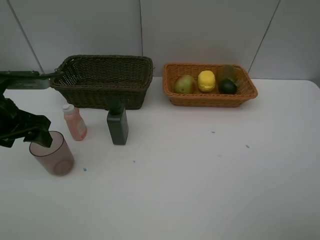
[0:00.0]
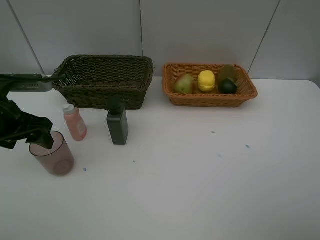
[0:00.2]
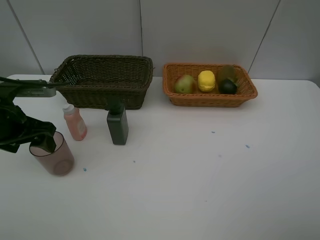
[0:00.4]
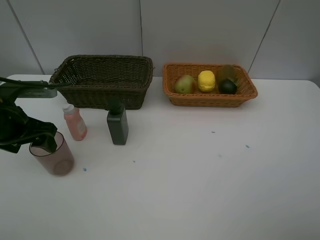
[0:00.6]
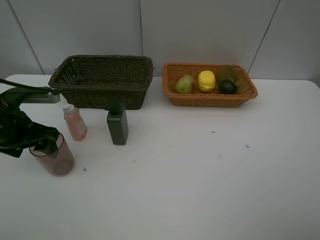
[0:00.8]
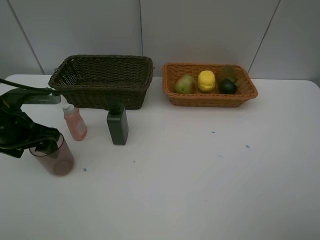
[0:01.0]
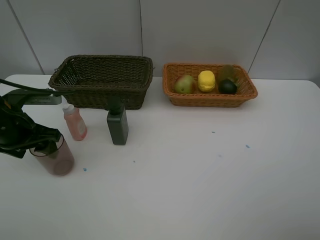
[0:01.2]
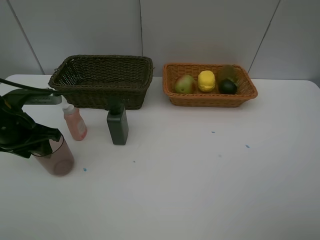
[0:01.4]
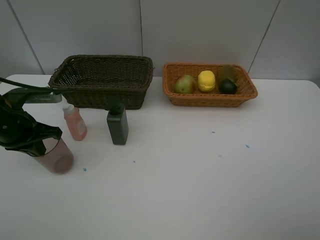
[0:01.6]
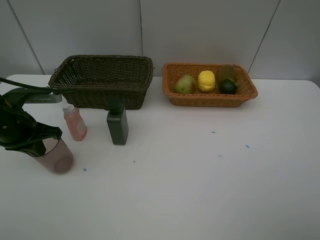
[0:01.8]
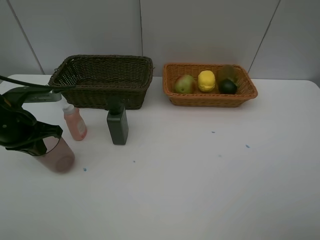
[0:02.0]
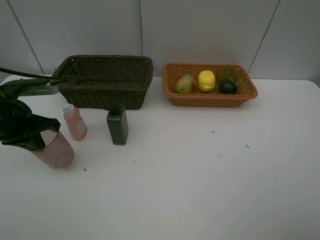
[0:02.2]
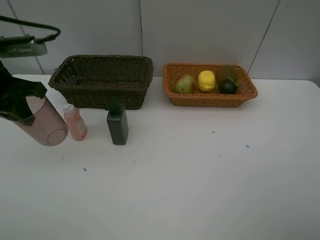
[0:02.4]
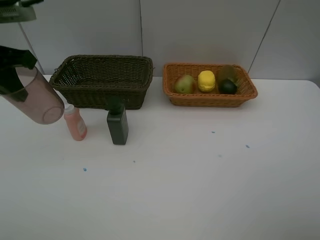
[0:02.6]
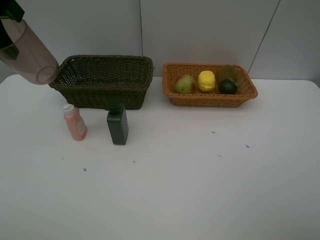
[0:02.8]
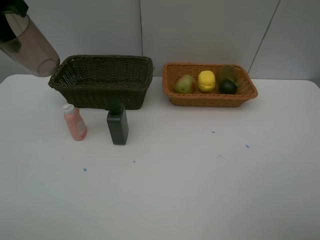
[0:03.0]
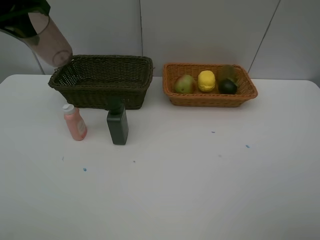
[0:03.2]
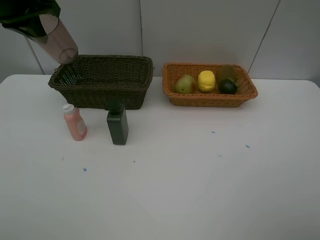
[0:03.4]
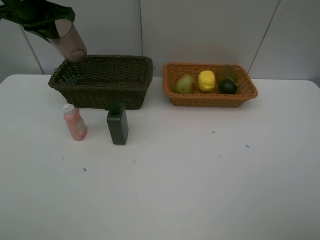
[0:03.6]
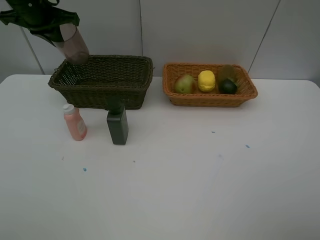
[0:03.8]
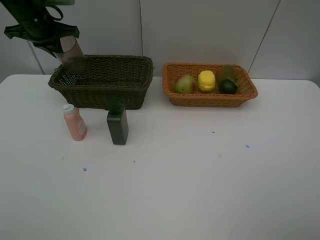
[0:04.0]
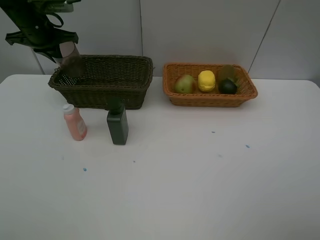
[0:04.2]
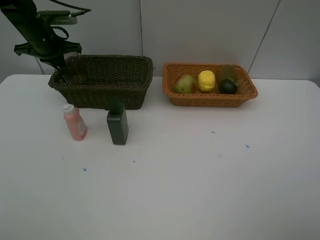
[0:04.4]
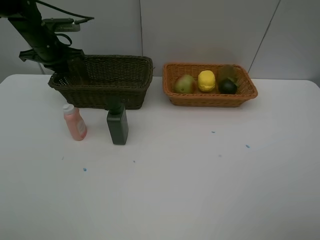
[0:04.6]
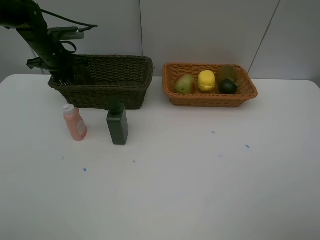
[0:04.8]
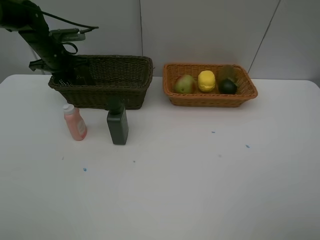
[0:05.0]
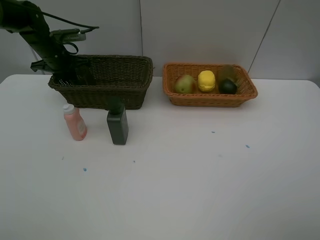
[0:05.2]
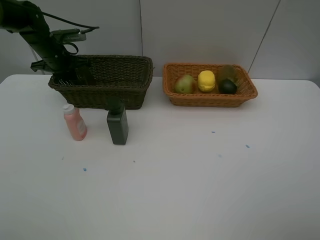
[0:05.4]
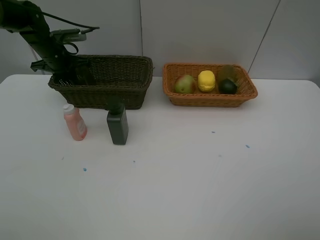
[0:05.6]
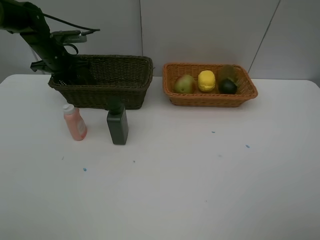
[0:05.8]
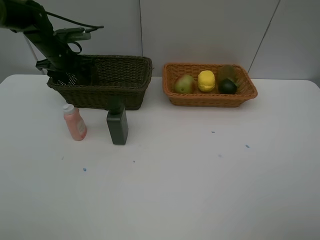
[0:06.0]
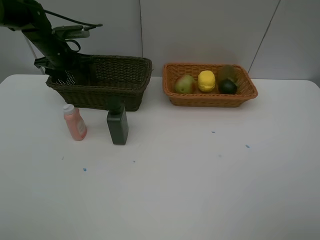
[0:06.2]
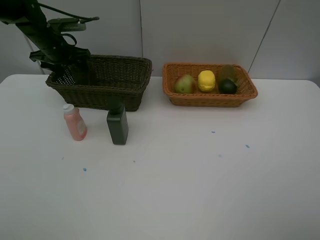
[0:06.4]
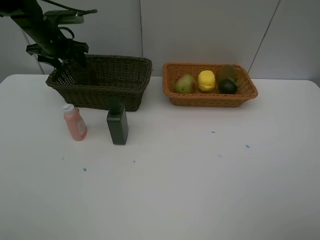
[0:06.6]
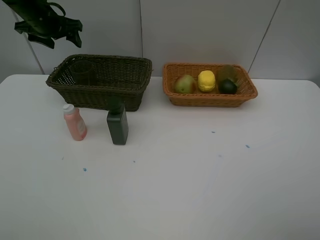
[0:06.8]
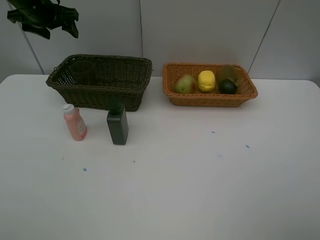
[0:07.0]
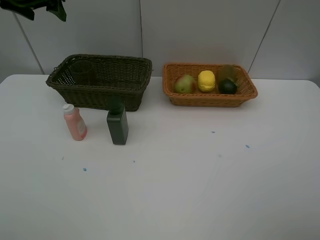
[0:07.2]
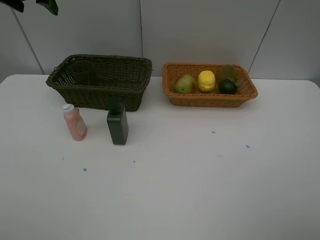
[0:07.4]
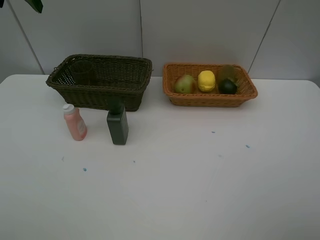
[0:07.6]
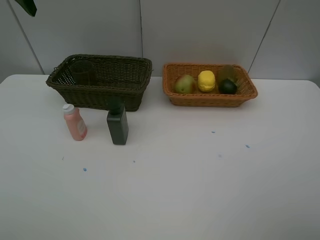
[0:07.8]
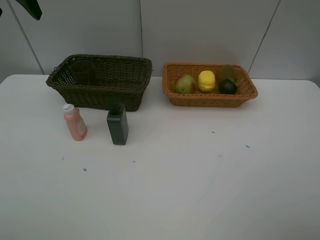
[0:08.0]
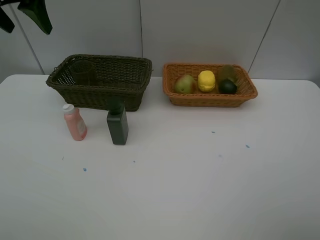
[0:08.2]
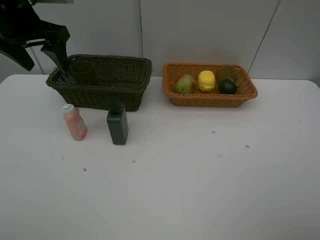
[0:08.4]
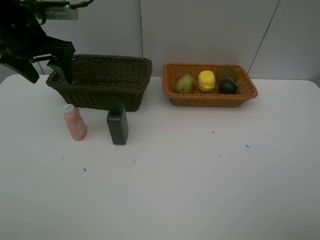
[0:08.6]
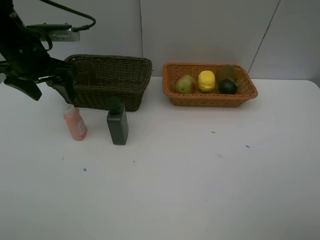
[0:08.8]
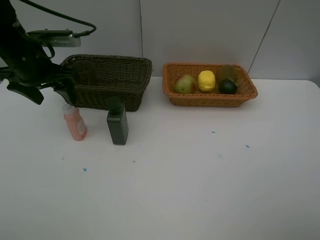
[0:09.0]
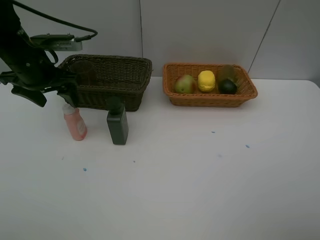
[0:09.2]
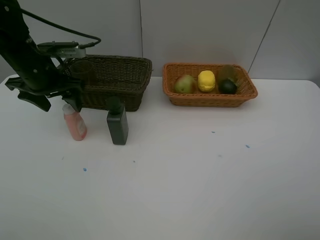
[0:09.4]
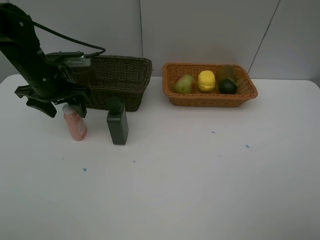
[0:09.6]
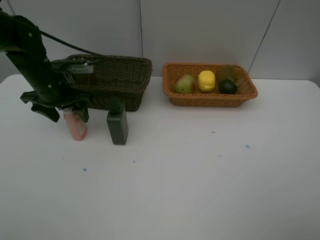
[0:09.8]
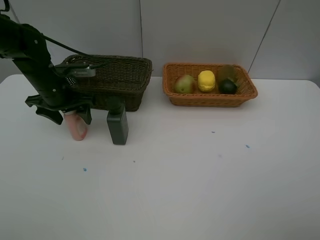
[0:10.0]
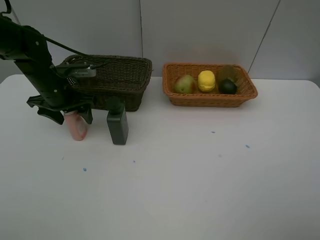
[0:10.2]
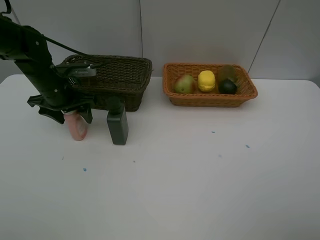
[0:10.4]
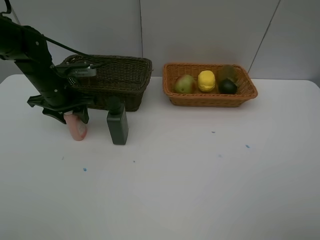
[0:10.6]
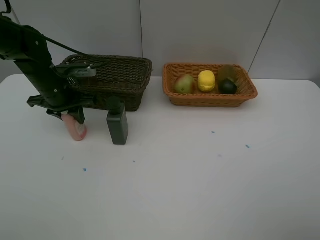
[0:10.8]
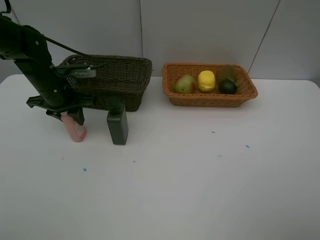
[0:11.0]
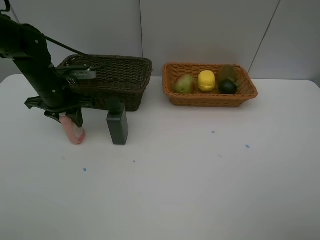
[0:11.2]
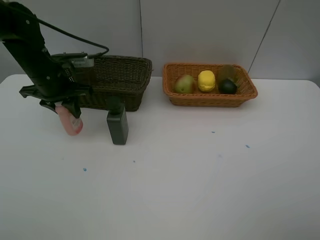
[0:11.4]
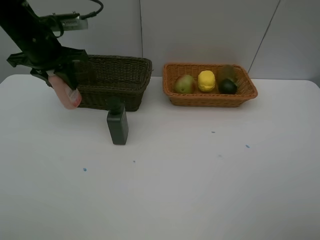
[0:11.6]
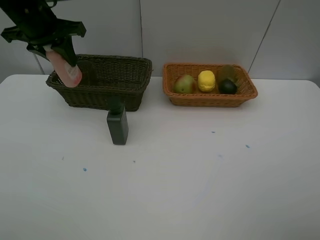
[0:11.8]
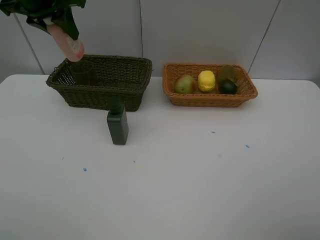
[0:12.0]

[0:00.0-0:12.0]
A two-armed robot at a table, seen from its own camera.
Task of the whole recording: Place multiple objects separately in different baskets.
Step, 0:00.0 to 0:02.4: Pick up the red cup with left gripper.
Step, 0:02.6 to 0:06.8: Place the red cup in the dark basket with left gripper.
Step, 0:07.0 to 0:11.4: Pick up the laundry detergent with left gripper.
0:00.0 to 0:01.6: The left gripper closes.
0:01.6 to 0:03.0: The left gripper shifts some 20 cm upward.
0:03.0 to 0:04.4: The left gripper is displaced forward and downward by about 25 cm.
0:04.4 to 0:06.0: The left gripper opens up.
0:06.0 to 0:07.6: The left gripper shifts approximately 20 cm upward.
0:07.6 to 0:09.0: The left gripper is displaced downward and backward by about 15 cm.
0:09.0 to 0:10.4: The left gripper travels downward by approximately 10 cm.
0:10.4 to 0:12.0: The left gripper travels upward by approximately 20 cm, and closes its fingers.

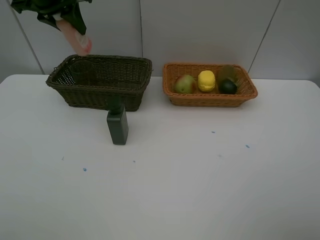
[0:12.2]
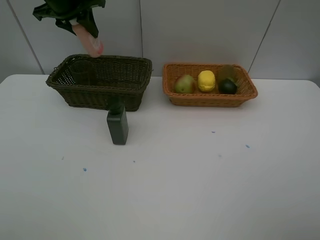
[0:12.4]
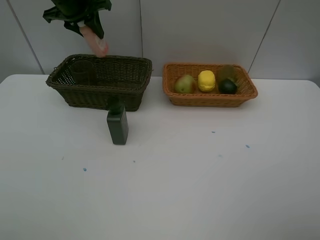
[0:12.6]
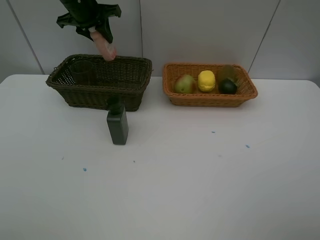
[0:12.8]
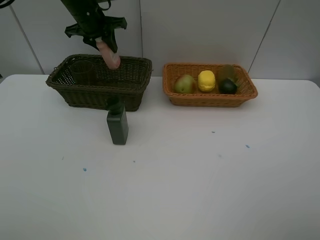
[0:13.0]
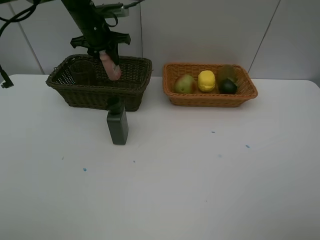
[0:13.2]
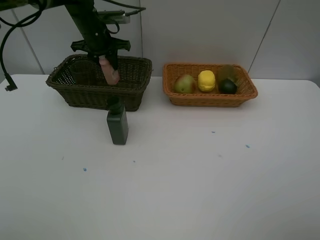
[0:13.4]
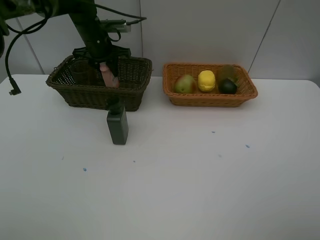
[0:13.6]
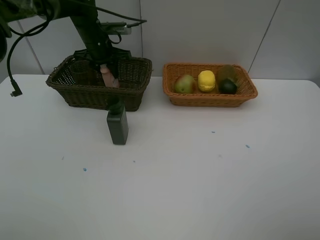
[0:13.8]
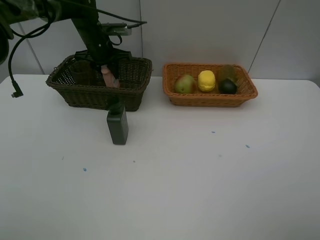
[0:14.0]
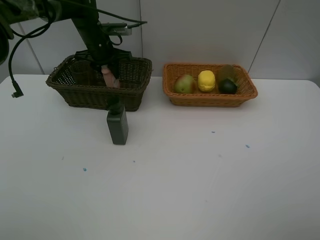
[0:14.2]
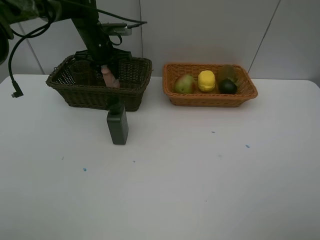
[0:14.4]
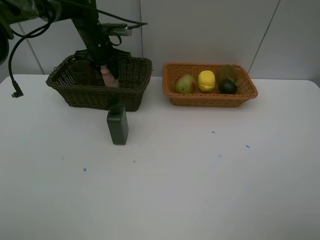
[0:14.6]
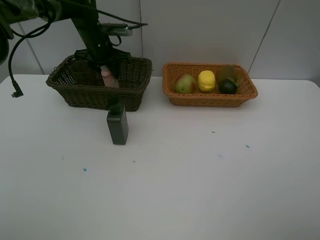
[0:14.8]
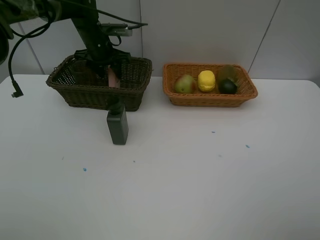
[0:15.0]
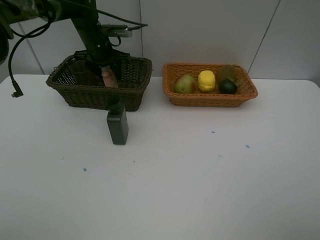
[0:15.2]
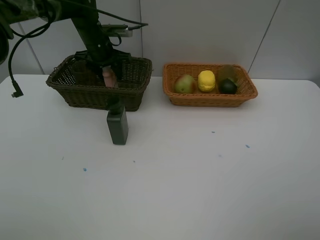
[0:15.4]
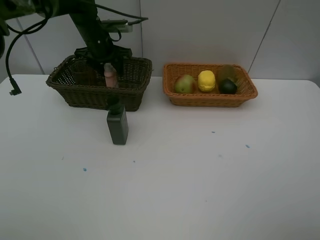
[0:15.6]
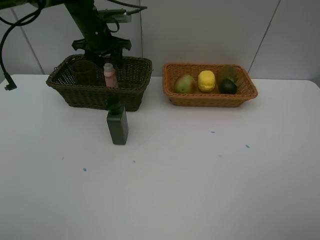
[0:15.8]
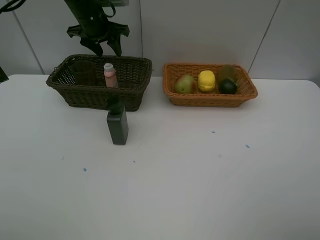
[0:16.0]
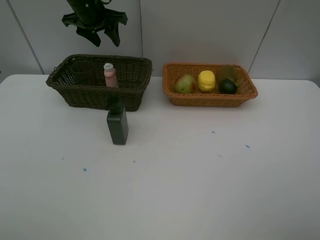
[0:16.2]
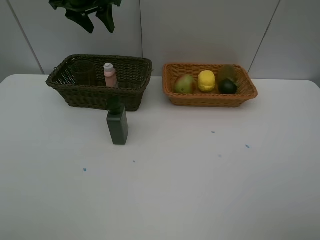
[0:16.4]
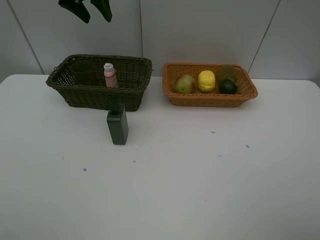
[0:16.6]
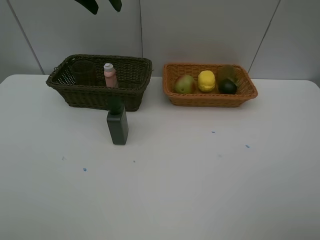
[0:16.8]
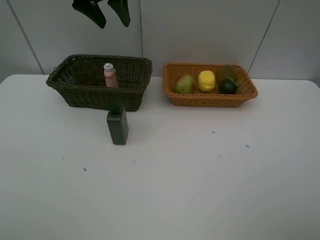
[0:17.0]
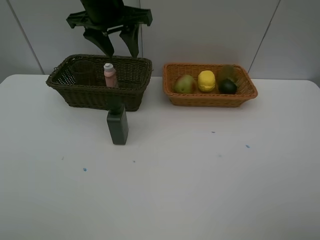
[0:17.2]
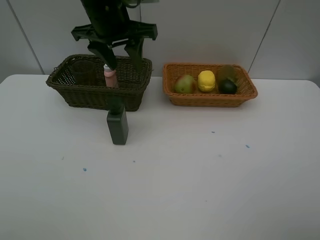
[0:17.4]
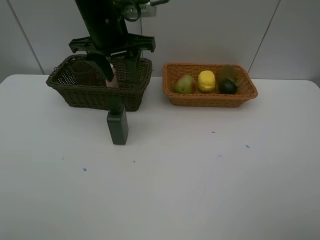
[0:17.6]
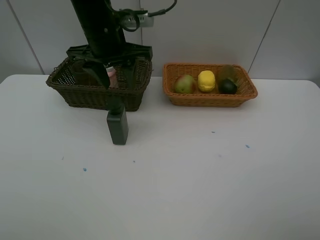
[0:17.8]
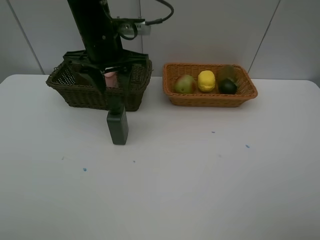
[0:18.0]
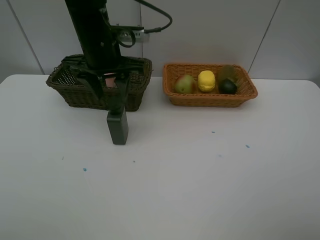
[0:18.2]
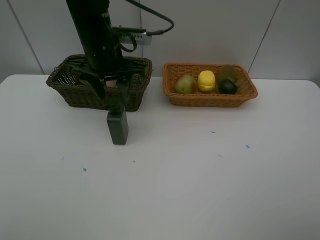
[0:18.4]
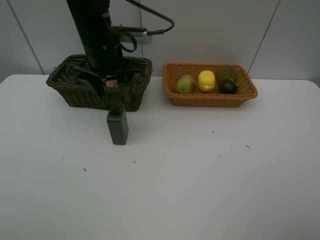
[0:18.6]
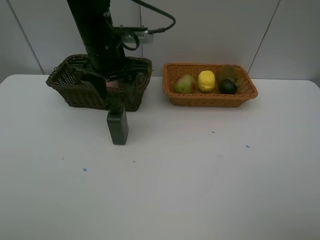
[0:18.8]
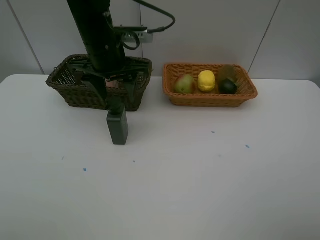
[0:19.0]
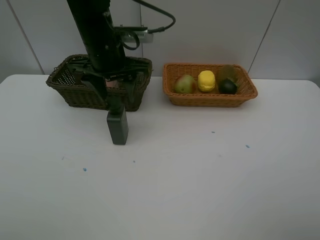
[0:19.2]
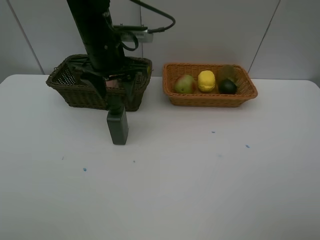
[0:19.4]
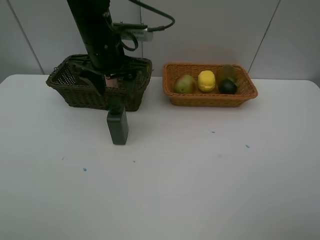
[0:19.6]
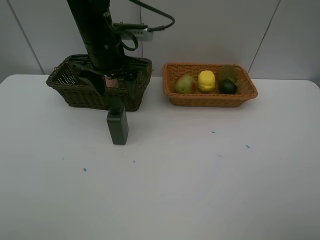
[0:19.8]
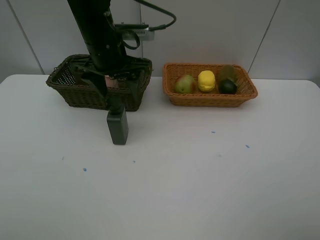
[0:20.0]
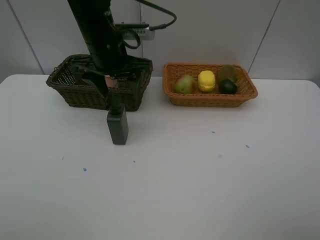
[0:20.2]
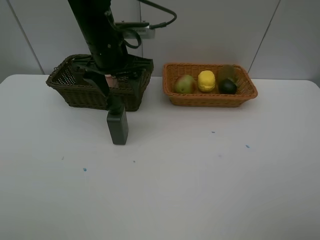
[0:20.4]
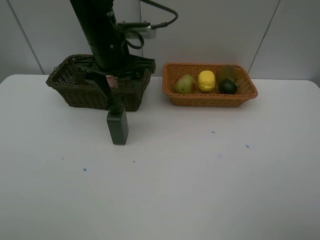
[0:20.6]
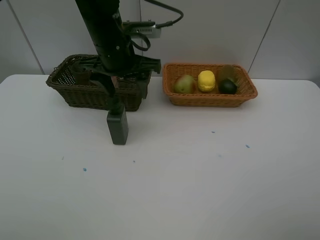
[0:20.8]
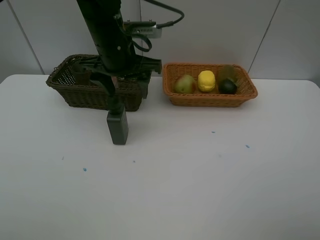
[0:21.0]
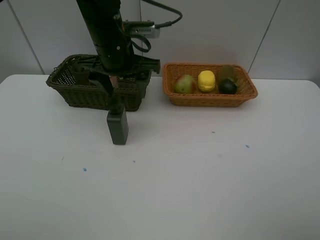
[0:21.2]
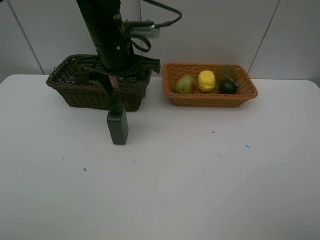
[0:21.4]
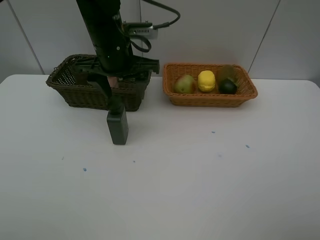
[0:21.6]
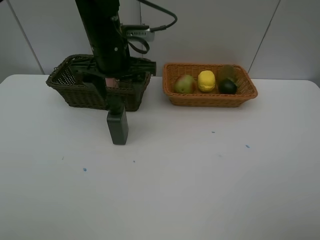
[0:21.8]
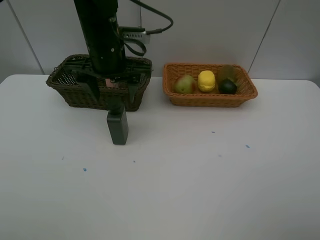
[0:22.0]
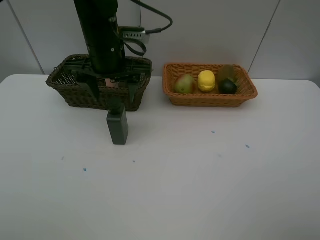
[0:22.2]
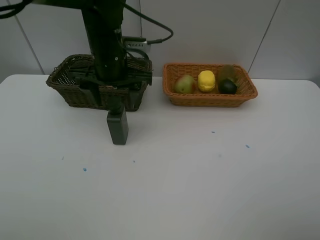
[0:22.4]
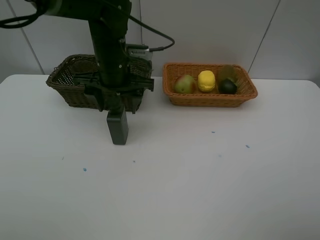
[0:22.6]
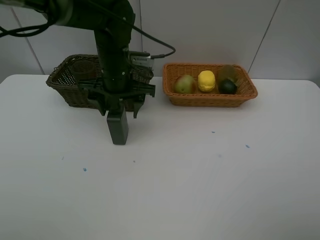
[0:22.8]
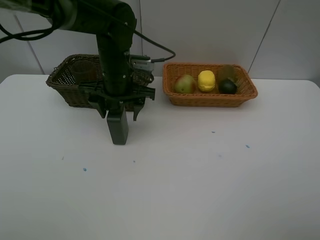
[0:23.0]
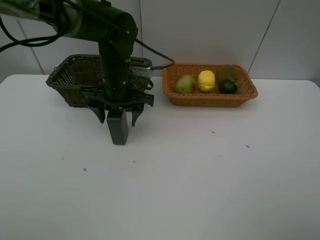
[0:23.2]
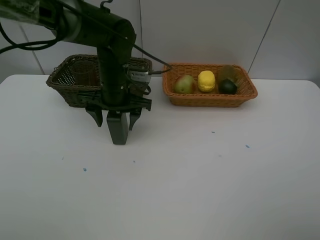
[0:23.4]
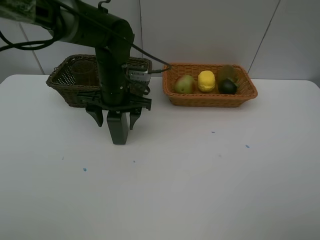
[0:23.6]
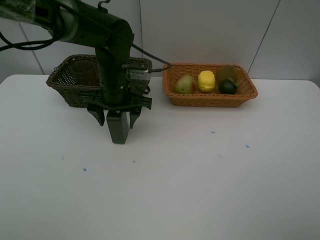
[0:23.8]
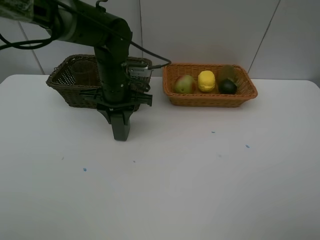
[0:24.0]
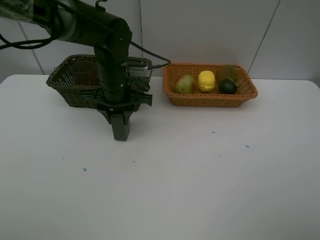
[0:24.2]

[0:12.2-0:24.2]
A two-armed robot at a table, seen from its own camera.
Task of the whole recording: Place multiple objects separately in different baskets.
Step, 0:12.2 to 0:15.8: Place the laundry detergent in the dark basket with left gripper.
0:12.2 to 0:13.8: The left gripper travels downward and forward by some 15 cm.
0:13.8 to 0:15.2: Neither gripper changes place.
0:15.2 to 0:16.6: The left gripper moves upward, some 20 cm.
0:16.6 to 0:18.2: The left gripper shifts roughly 15 cm downward, backward and to the right.
0:18.2 to 0:22.6: The grippers stay close to where they were, moving slightly.
0:22.6 to 0:24.2: The left gripper closes its fingers.
